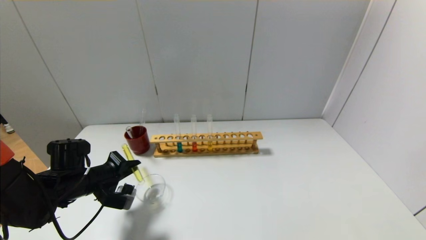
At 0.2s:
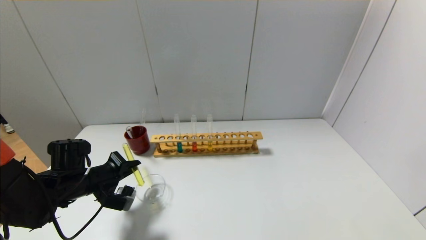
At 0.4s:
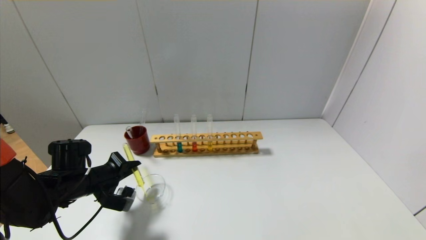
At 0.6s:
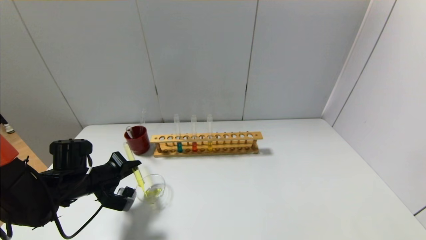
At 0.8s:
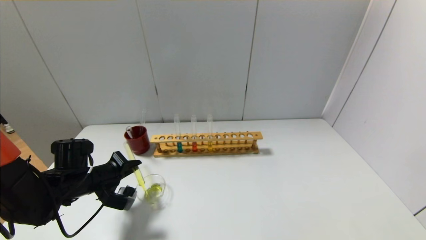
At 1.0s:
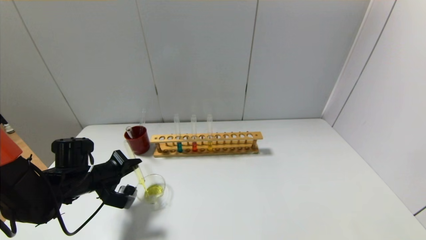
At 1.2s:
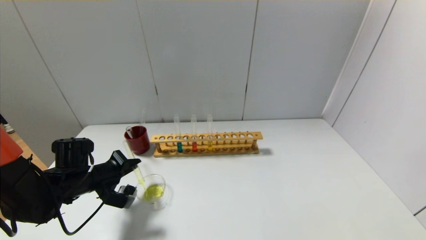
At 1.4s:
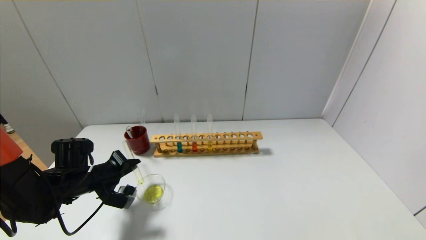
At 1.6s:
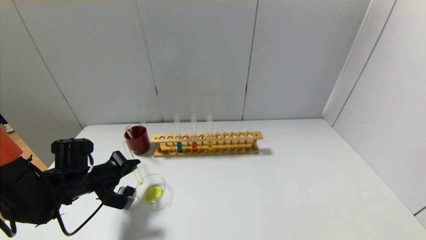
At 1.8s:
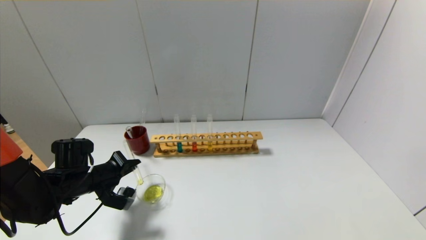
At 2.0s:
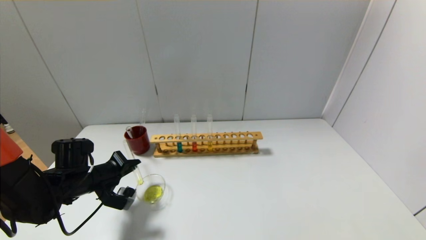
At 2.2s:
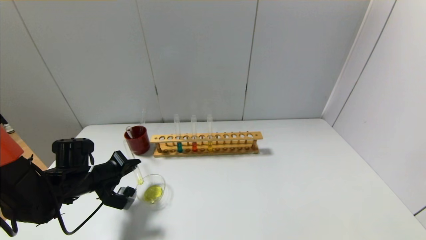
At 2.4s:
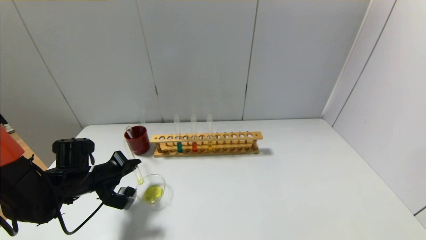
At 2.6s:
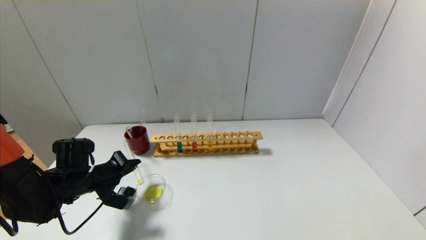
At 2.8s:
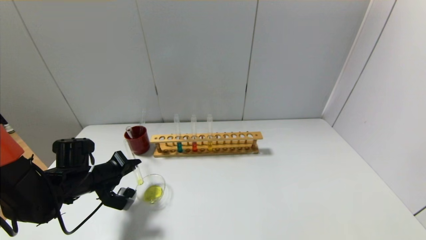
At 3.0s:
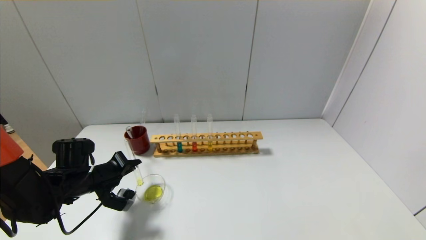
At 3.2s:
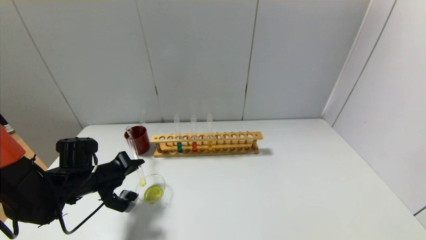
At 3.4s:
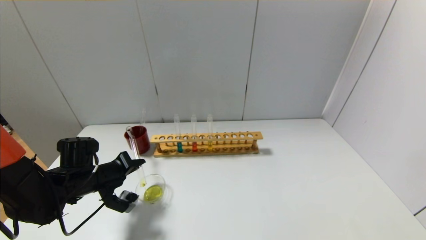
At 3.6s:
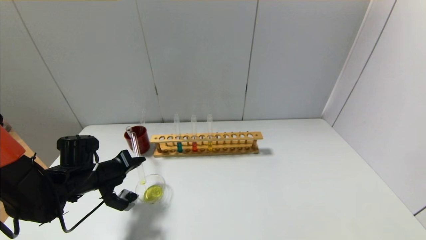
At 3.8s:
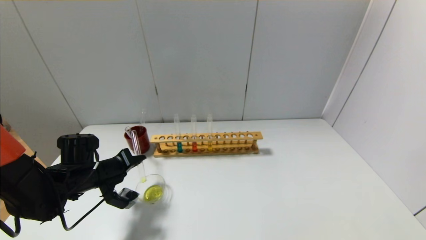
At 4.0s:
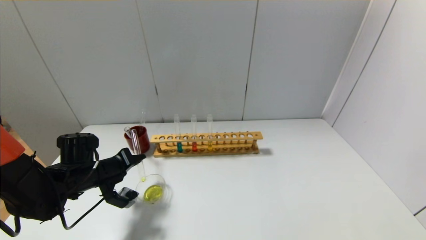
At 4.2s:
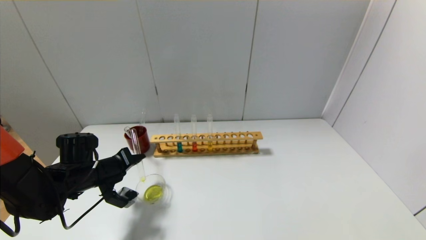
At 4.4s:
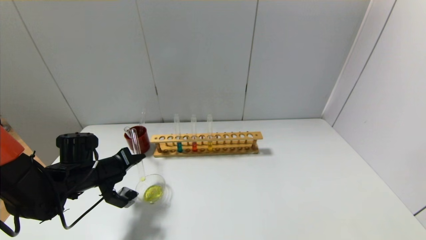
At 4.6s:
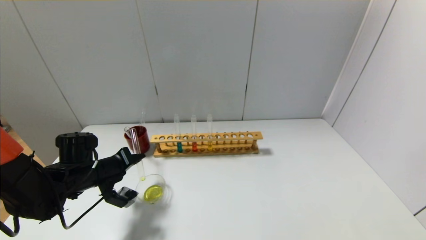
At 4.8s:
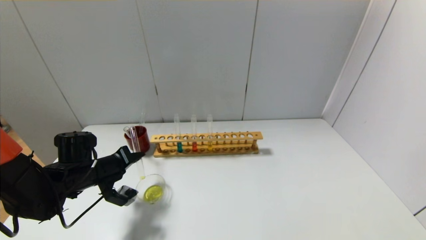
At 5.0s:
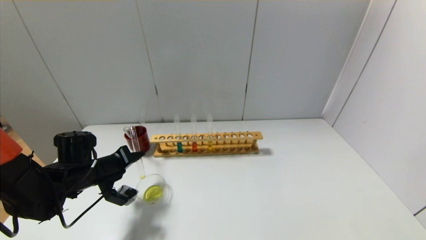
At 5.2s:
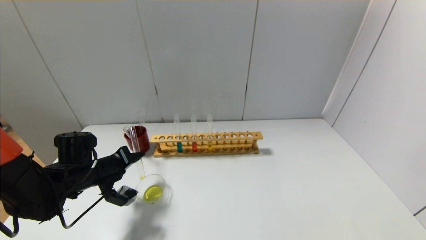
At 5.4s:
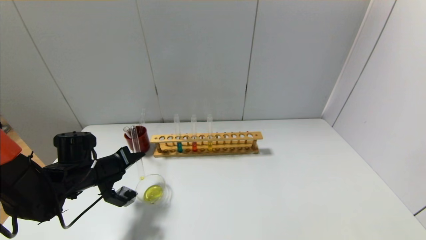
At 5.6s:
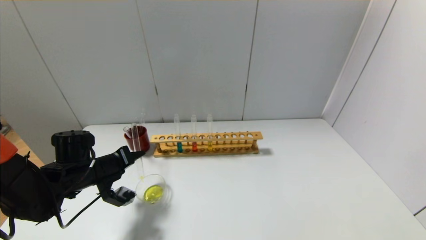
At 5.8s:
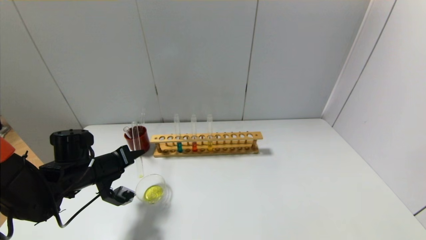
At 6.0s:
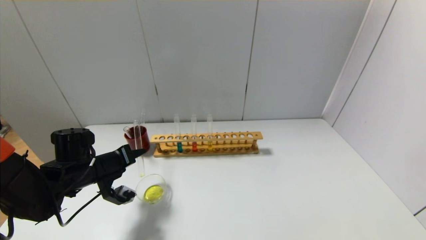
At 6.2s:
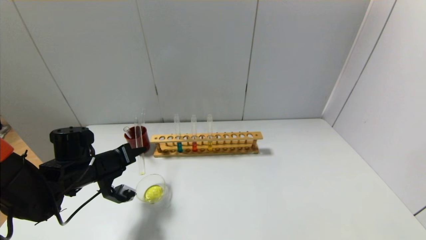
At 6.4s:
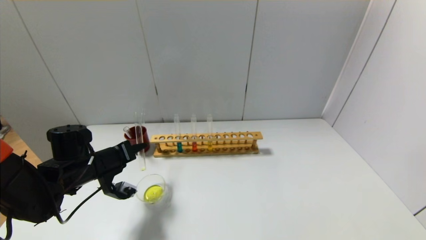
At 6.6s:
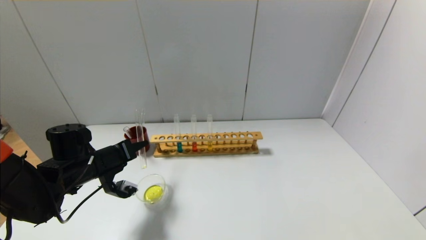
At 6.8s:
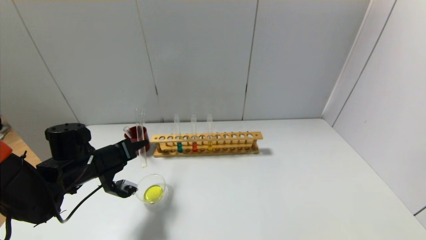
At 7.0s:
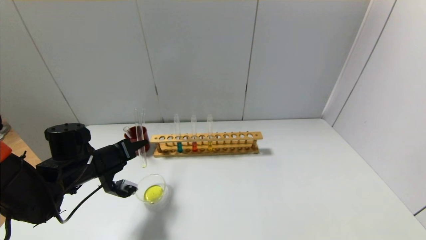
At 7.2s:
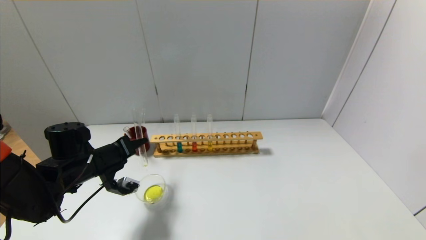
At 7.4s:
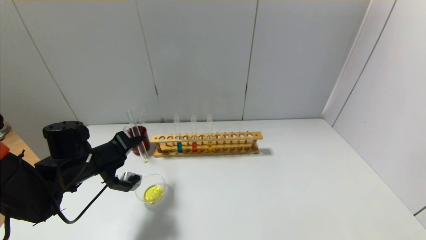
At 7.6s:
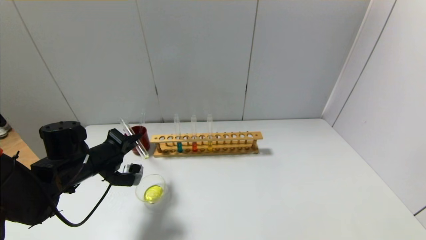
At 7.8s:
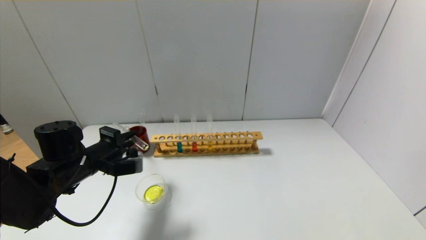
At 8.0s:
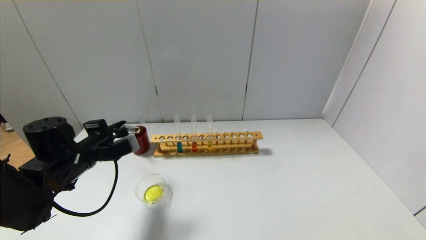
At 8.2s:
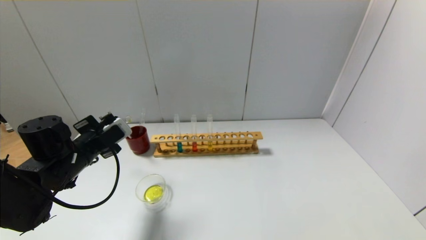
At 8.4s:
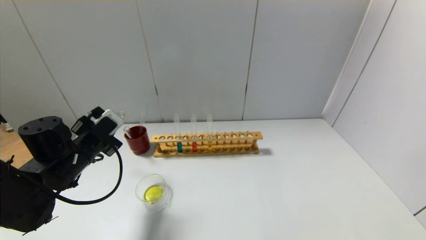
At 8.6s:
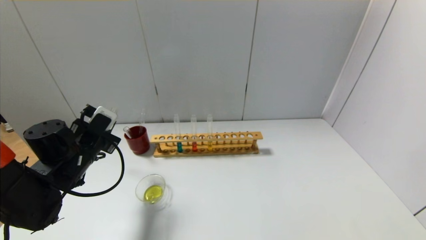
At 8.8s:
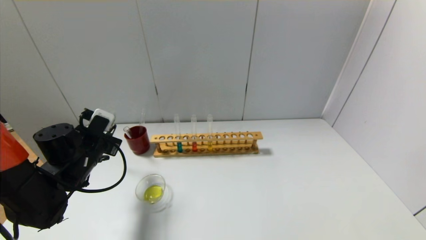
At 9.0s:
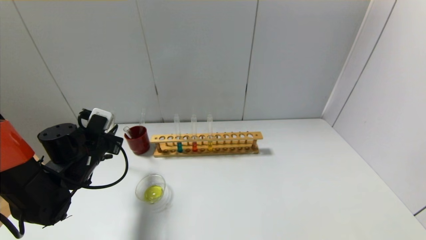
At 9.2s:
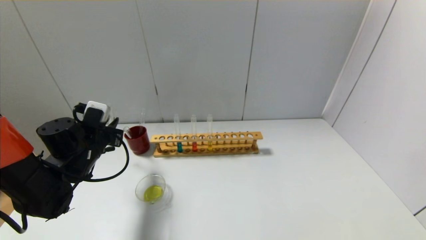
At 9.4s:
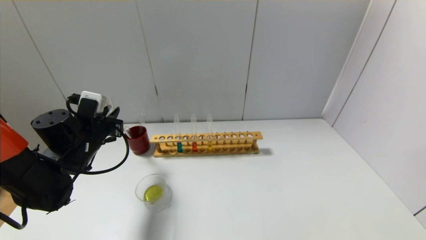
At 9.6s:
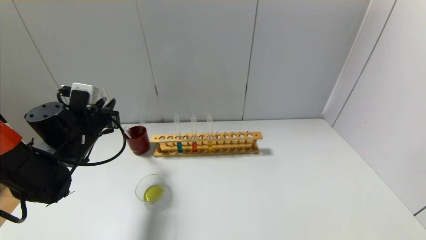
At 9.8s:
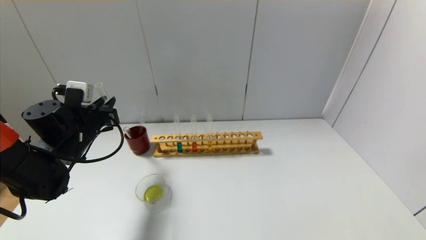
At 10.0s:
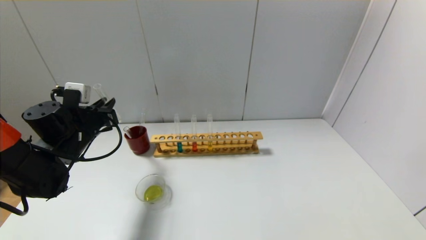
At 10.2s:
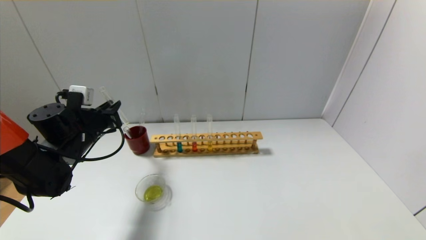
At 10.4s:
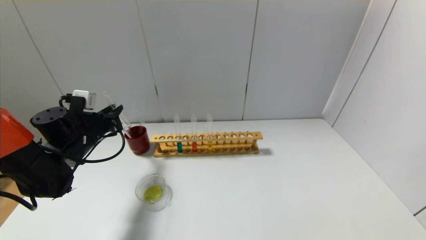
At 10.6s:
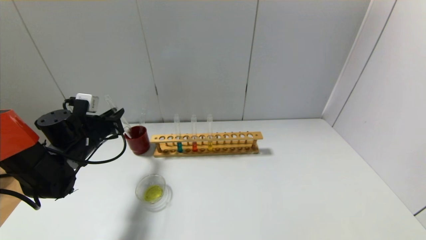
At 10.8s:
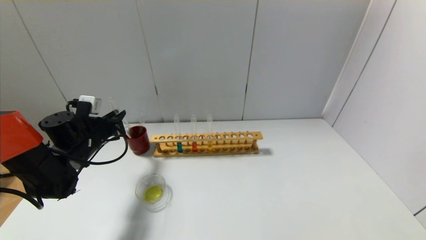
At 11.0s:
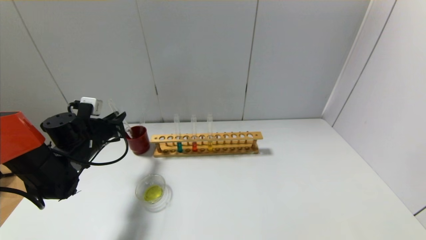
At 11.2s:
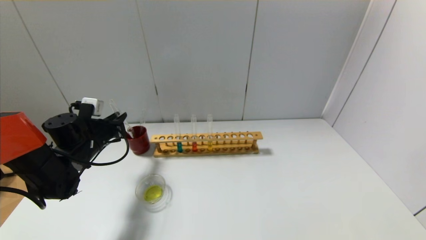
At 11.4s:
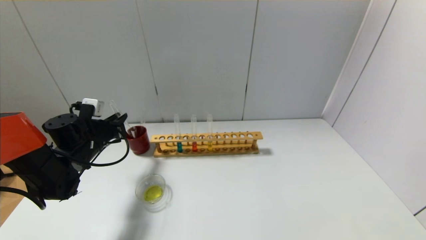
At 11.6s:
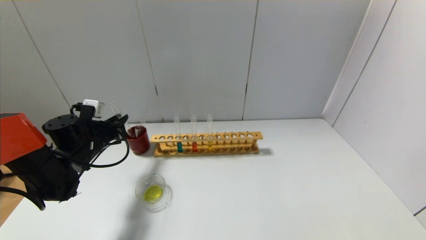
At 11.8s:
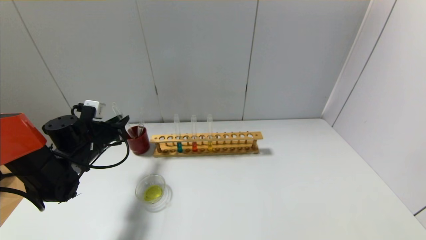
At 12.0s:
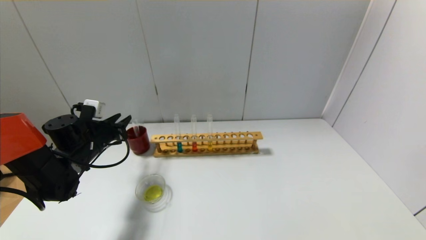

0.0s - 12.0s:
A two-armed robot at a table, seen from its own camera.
Step, 0.0s - 7.6s: Pour the yellow reagent into the graduated cylinder with the left gripper.
Step, 7.8s - 12.0s: Place the test tube into the brown cup with the left gripper.
0.0s - 3.0s: The grippers move only a little.
3.0s - 4.4s: The grippers stay close to where they were, moving slightly.
4.4s - 6.0s: The grippers make only small movements.
9.0s - 10.4s: The left gripper changes place by roughly 5 cm.
10.4s - 12.0s: The grippers make only small movements.

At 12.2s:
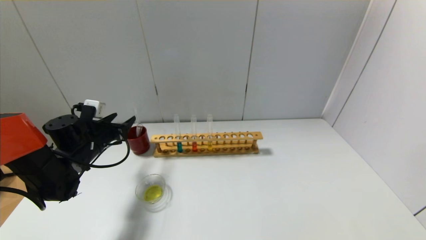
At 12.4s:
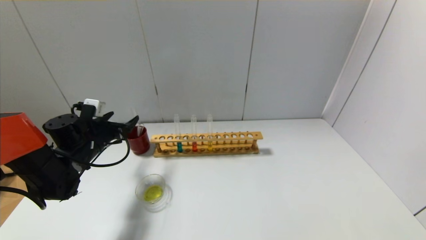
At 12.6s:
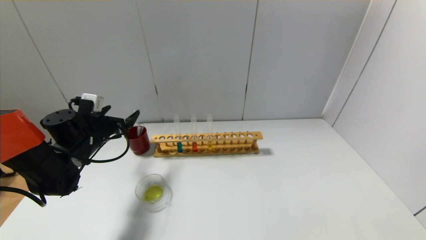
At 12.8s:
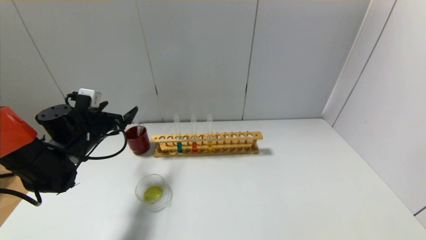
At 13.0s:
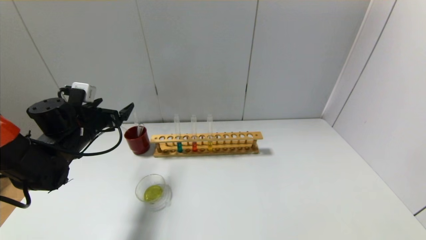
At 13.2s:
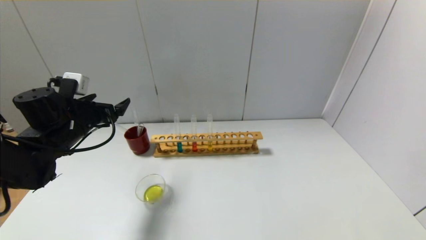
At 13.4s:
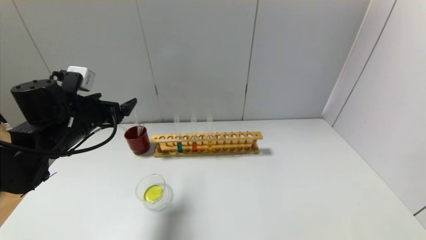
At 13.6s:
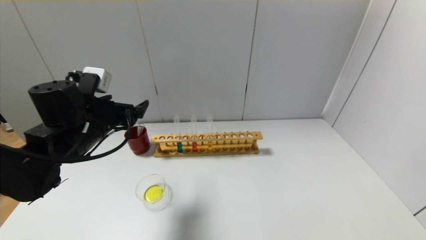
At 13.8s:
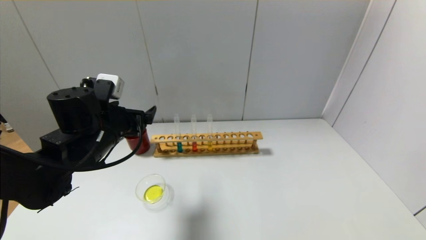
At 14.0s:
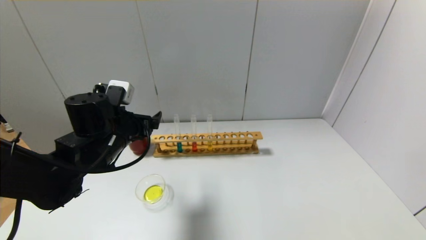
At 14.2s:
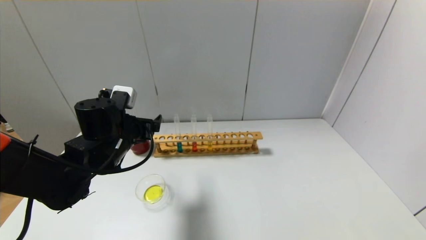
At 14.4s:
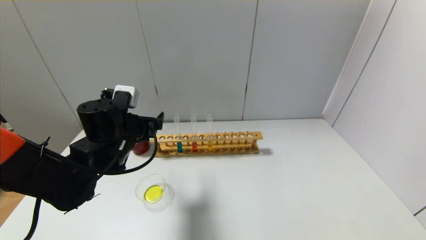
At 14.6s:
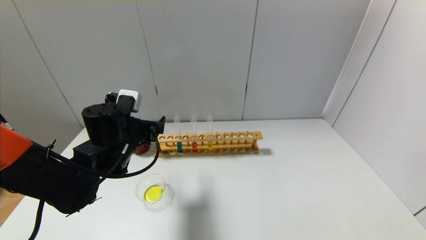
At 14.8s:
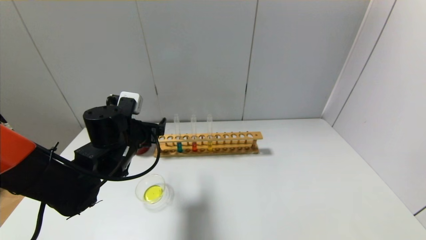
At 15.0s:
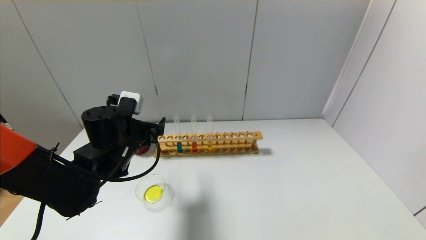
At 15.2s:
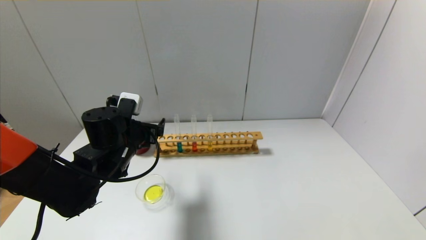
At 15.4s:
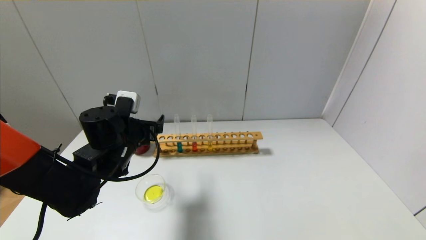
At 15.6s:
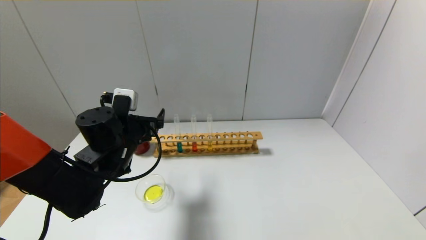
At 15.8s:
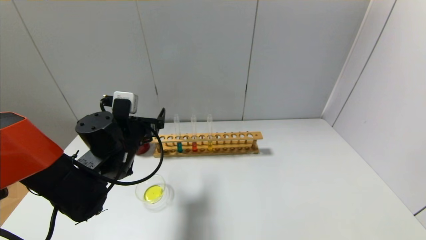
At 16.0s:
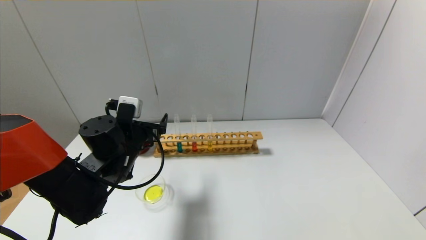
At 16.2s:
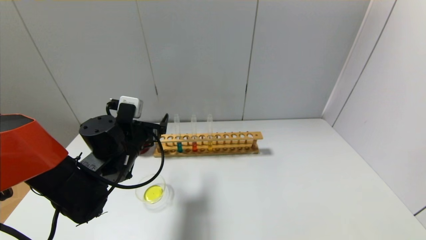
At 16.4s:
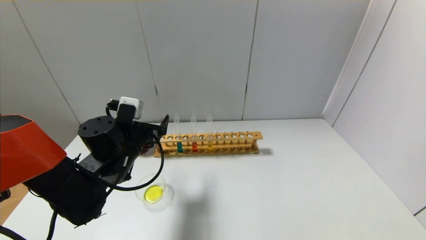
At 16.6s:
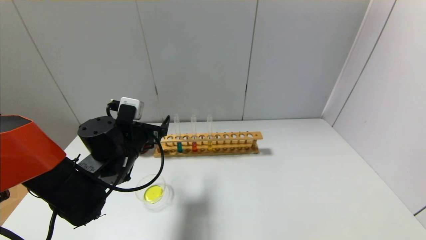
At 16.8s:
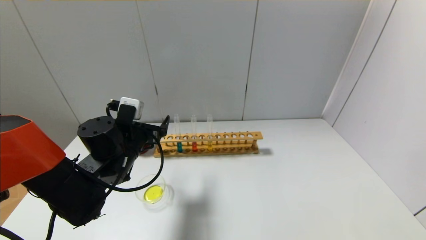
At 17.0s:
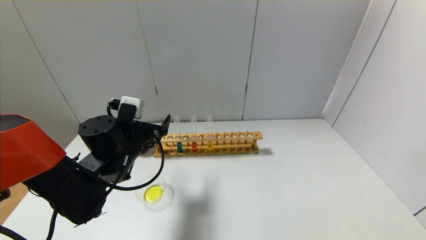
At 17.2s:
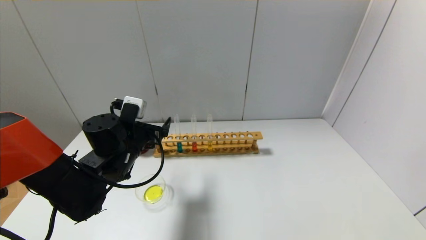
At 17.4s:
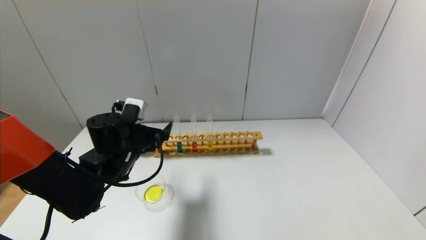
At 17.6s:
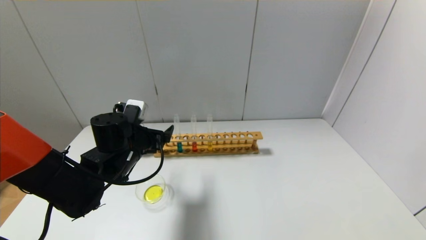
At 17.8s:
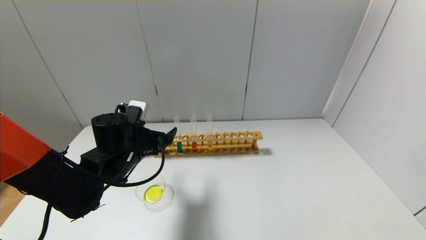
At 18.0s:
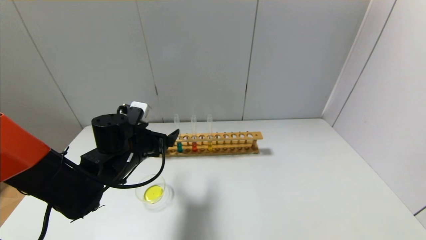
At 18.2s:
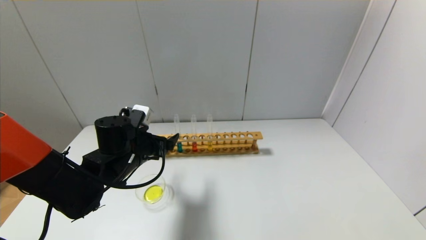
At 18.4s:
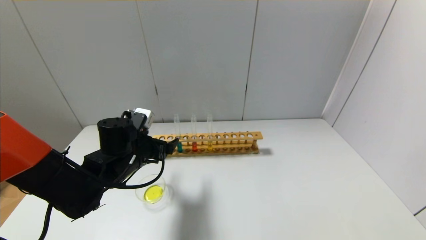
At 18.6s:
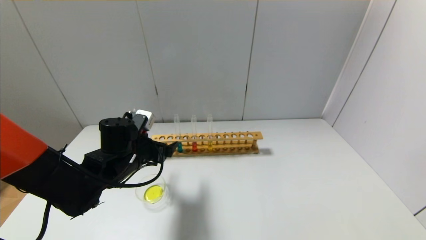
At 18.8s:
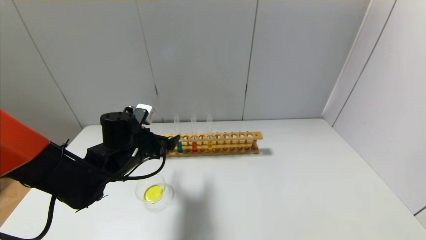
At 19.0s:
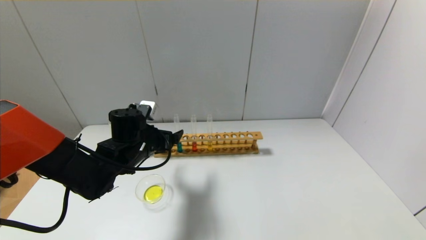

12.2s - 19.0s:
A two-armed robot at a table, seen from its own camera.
12.2s - 13.6s: The left gripper heads upward, to the right and backward, covering roughly 15 cm.
13.6s - 15.0s: The left gripper moves approximately 5 cm.
15.0s - 17.6s: There are only small adjustments of the grippers.
17.6s - 19.0s: The grippers move only a little.
